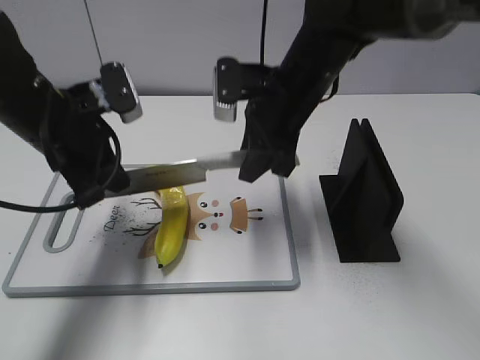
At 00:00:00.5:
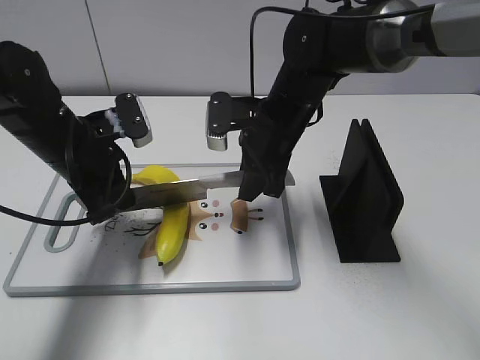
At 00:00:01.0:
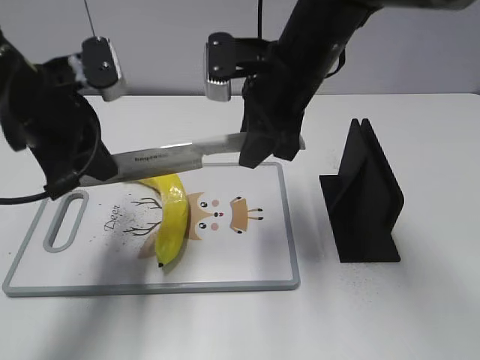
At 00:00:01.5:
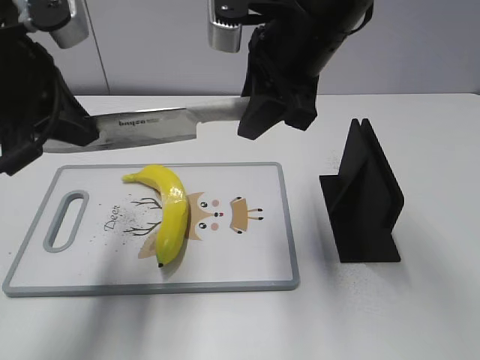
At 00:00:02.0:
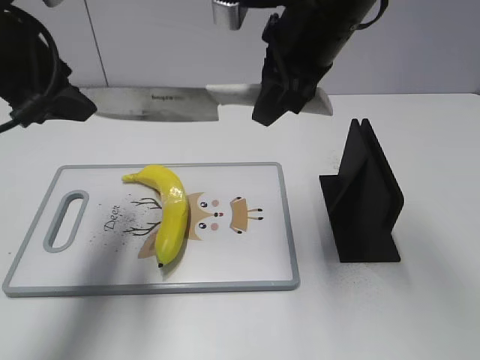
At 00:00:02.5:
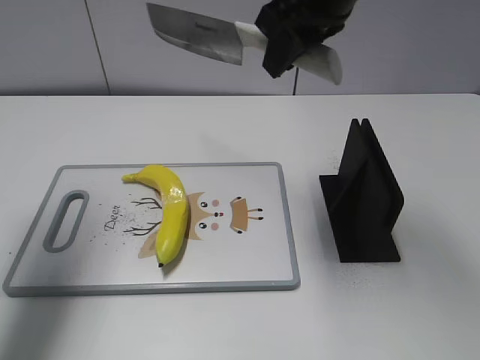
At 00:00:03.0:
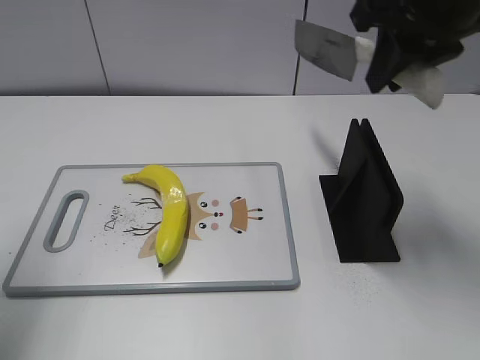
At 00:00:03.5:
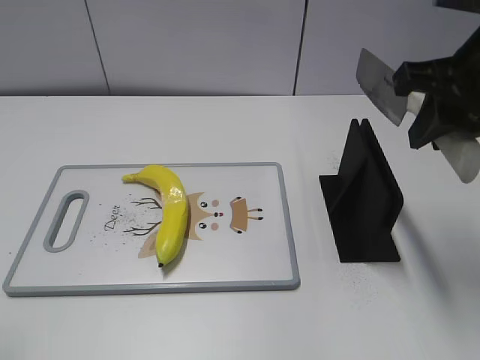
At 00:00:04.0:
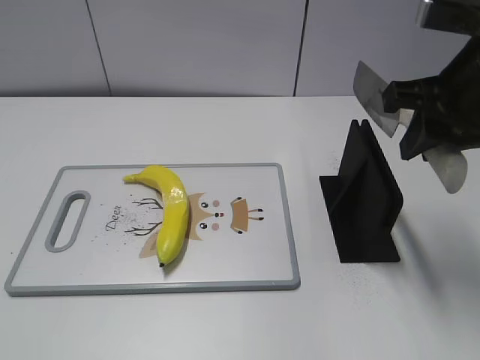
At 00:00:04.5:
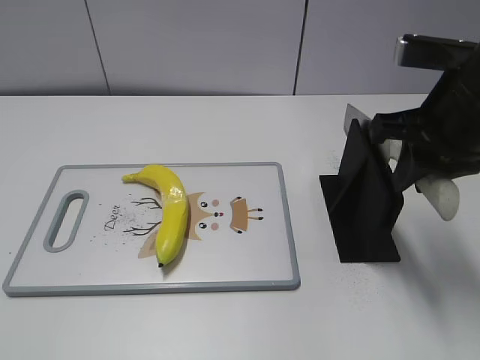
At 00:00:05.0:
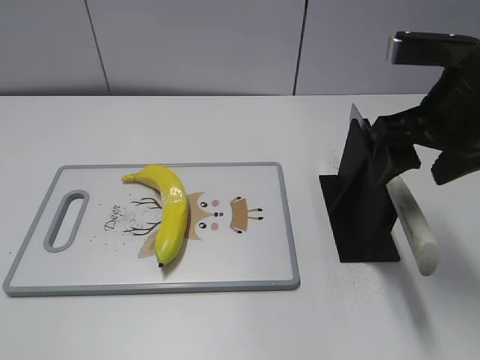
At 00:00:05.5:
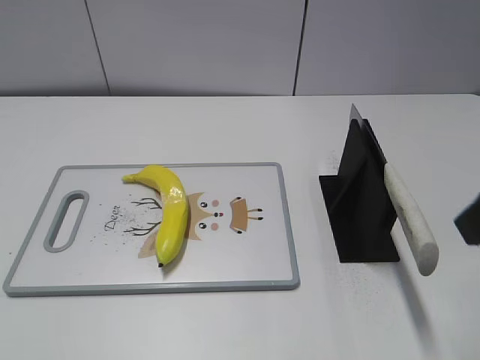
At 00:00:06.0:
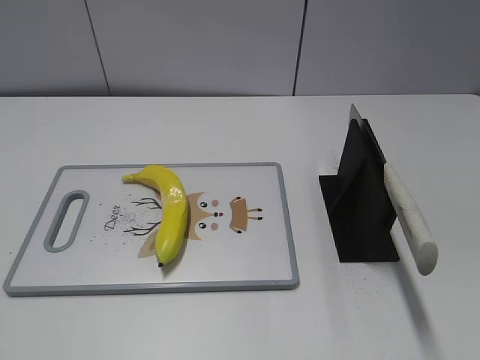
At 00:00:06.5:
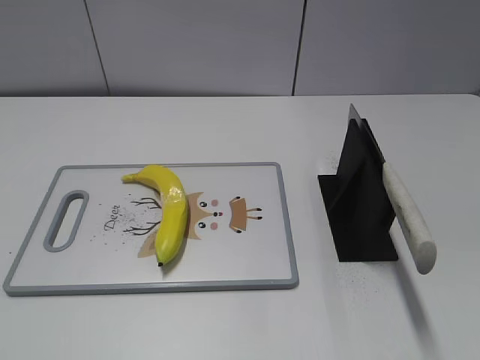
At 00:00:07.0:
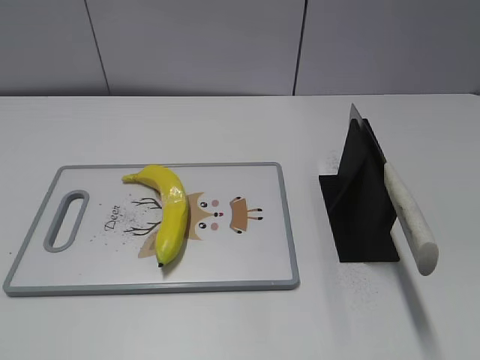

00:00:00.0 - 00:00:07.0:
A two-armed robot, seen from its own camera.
Task of the whole recording: cut plastic banana.
Step, 00:00:01.5 - 00:00:02.5: Cut the banana with your right hand.
Step, 00:00:03.0 - 00:00:03.5: Lift the knife with your right hand.
Step, 00:00:04.0 - 00:00:07.0: Place the knife on the storage rack with your right hand.
00:00:00.0 - 00:00:02.0: Both grippers travel together upward, about 10 cm. The left gripper opens up.
00:00:02.0 - 00:00:03.5: The right gripper goes roughly 15 cm to the right and backward; the left gripper is displaced backward and to the left by roughly 20 cm.
00:00:03.5 - 00:00:05.0: The right gripper opens.
00:00:05.0 - 00:00:07.0: The right gripper goes some 30 cm backward.
